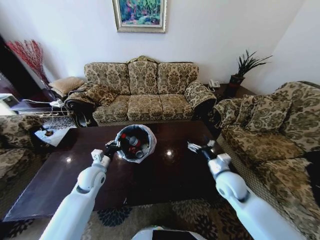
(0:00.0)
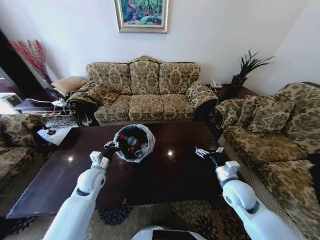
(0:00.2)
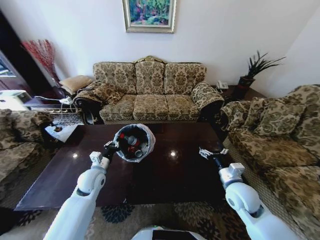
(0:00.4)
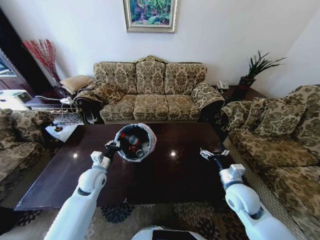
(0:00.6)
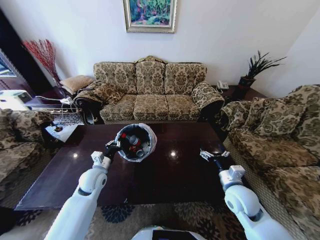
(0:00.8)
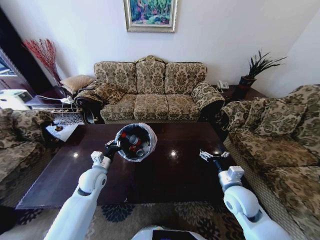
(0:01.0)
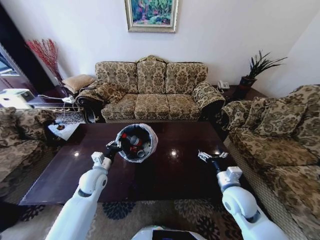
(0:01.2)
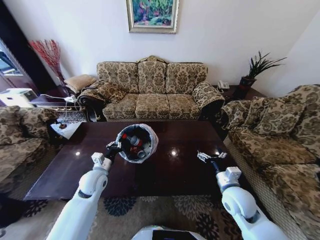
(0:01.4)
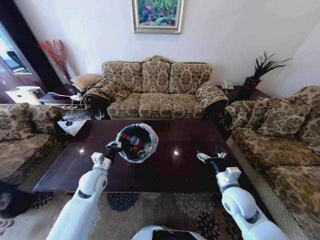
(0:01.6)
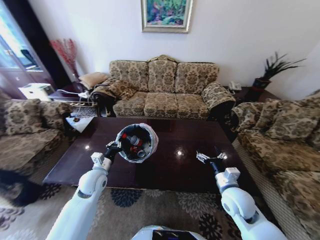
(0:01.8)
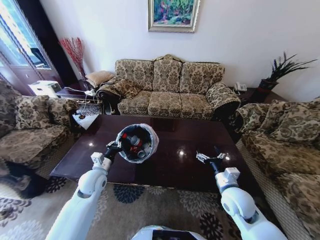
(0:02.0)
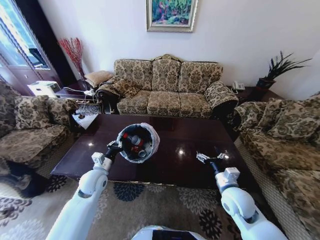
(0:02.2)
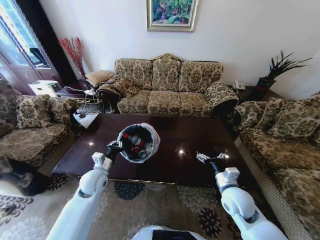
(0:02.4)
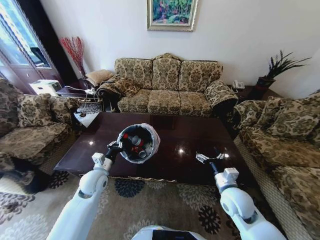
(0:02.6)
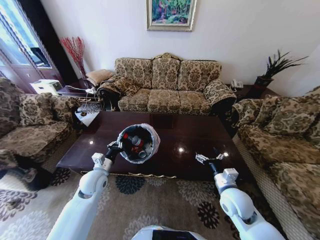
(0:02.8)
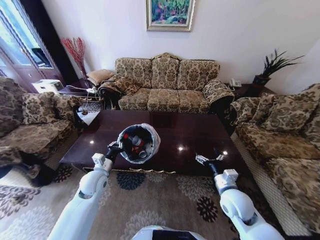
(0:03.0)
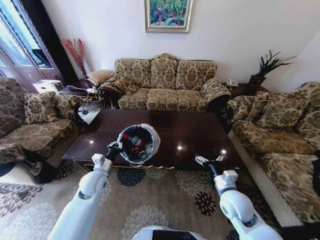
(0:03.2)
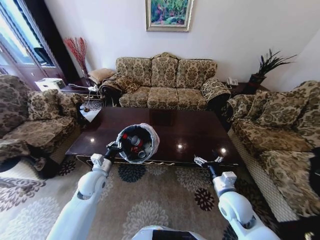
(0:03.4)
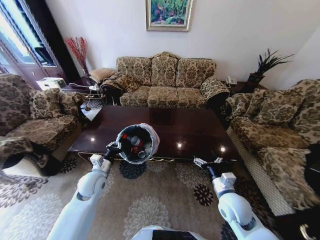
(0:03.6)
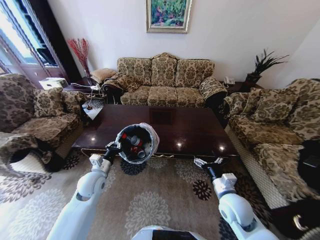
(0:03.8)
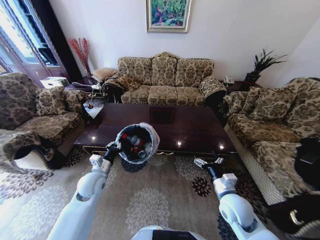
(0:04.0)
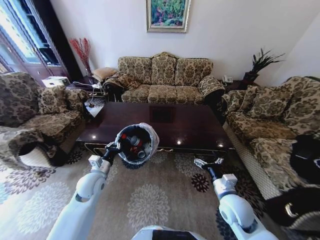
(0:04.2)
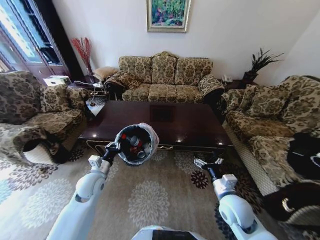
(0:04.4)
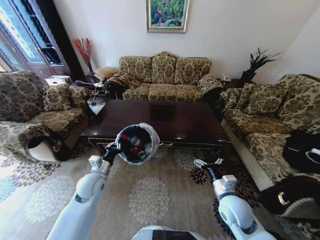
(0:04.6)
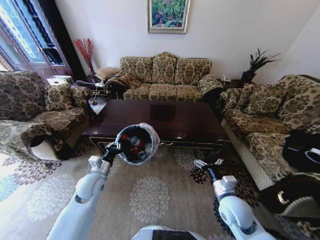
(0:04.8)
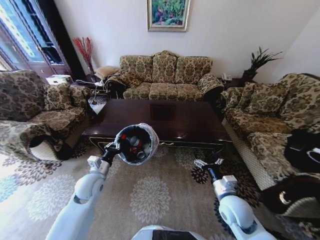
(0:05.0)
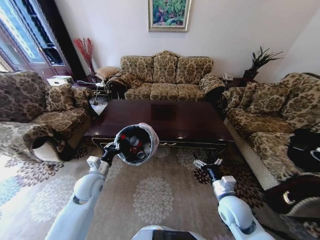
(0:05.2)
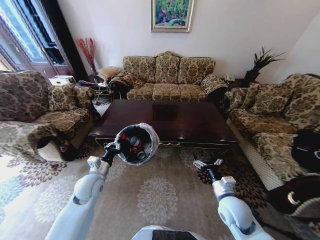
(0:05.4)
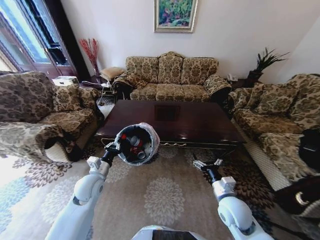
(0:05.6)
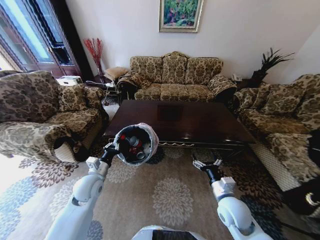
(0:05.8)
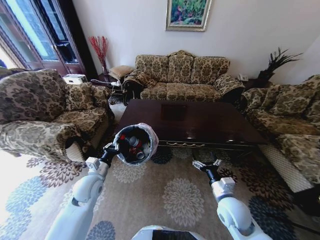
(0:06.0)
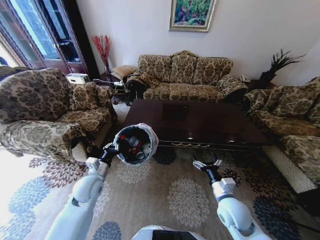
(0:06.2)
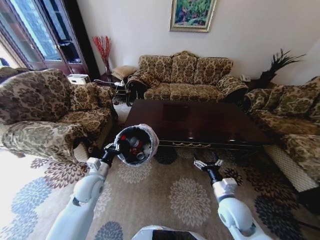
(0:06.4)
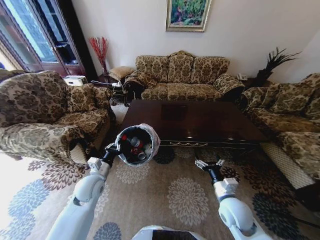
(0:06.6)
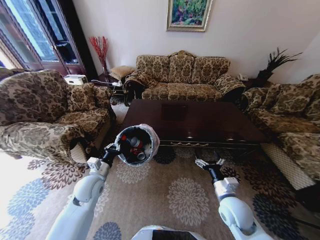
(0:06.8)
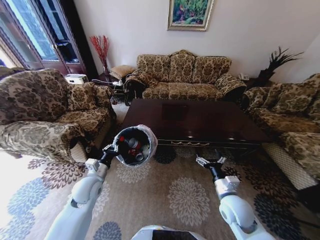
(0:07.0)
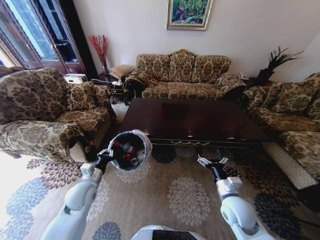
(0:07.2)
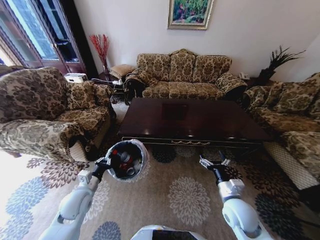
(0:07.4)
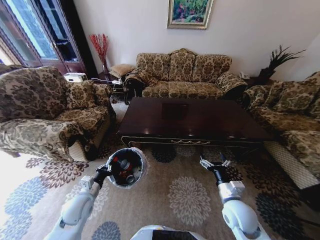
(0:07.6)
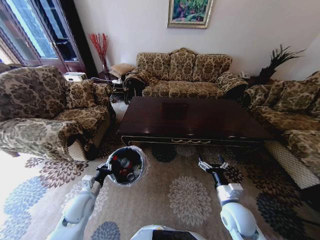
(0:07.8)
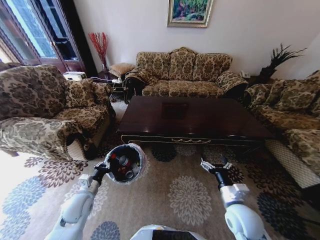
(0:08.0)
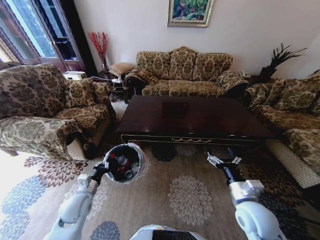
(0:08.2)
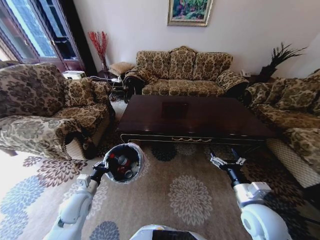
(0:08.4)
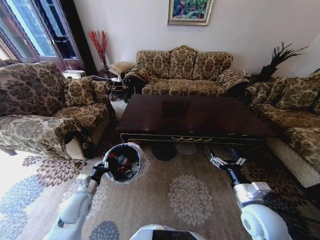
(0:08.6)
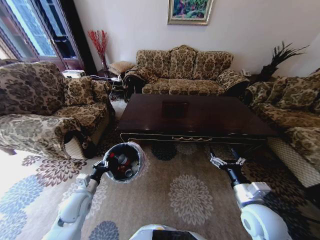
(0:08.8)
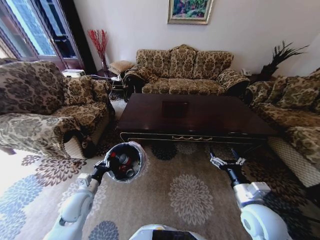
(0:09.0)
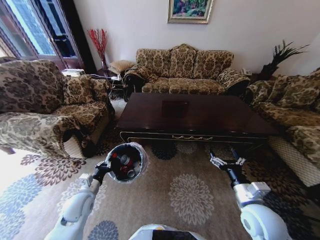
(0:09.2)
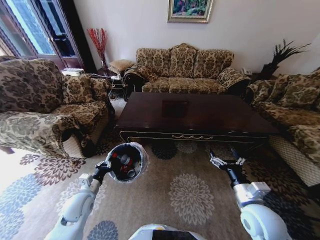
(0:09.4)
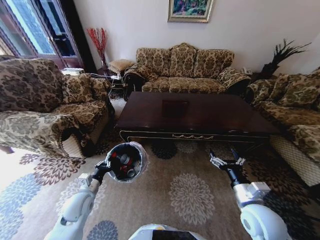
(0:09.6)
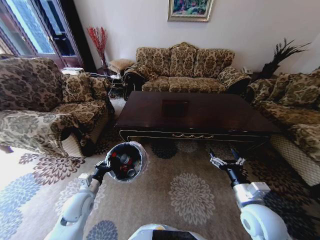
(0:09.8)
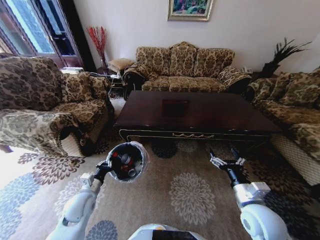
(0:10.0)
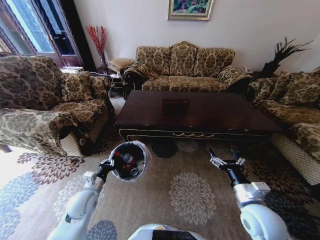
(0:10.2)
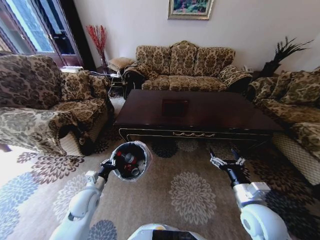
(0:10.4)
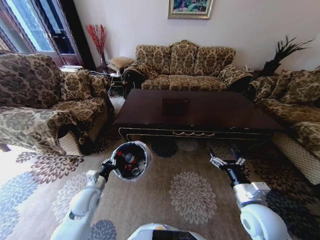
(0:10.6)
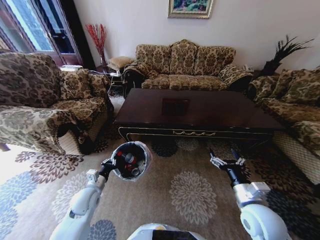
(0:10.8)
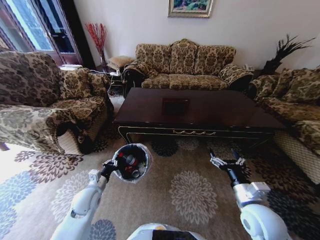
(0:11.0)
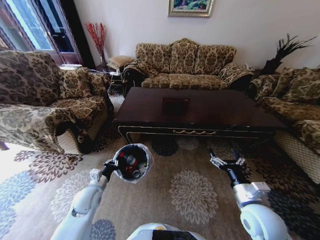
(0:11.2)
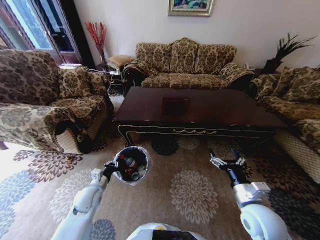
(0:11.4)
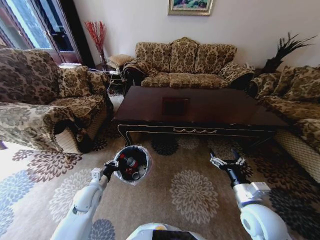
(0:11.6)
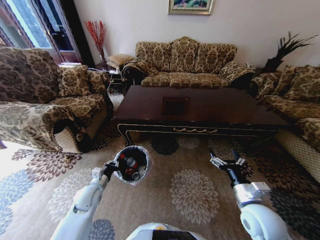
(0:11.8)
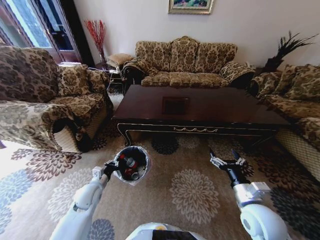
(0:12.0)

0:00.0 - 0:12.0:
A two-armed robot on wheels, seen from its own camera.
Task of the whole recording: Move to the front of the table and place the trash on the table into the trash bin.
0:00.0 - 0:01.6: The right gripper moves some 5 cm.
0:06.0 - 0:07.6: The left gripper shifts roughly 10 cm backward and downward.
0:07.6 - 0:09.0: The right gripper moves upward, roughly 5 cm.

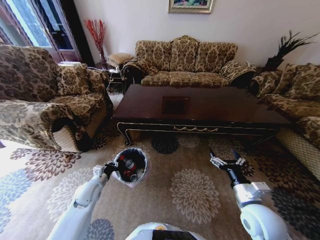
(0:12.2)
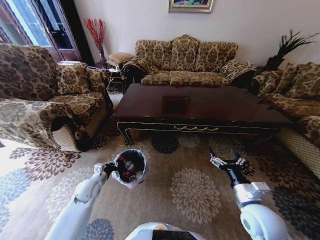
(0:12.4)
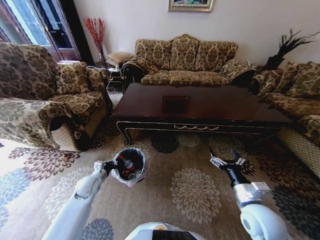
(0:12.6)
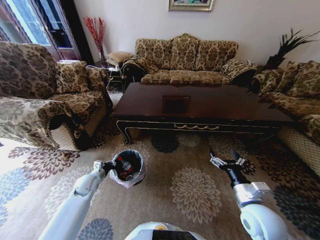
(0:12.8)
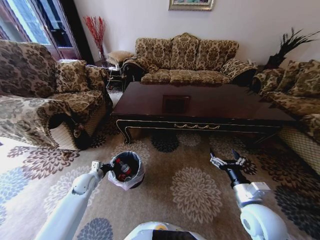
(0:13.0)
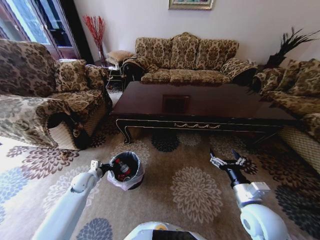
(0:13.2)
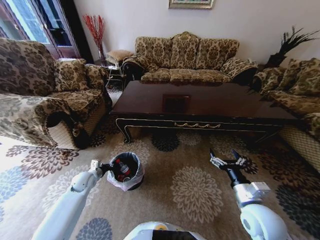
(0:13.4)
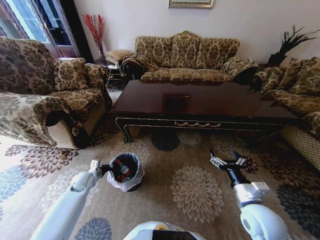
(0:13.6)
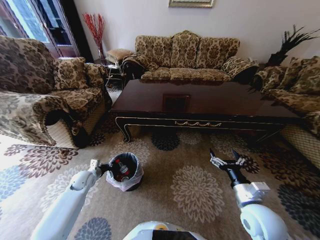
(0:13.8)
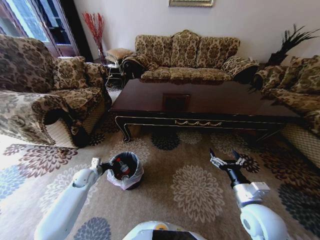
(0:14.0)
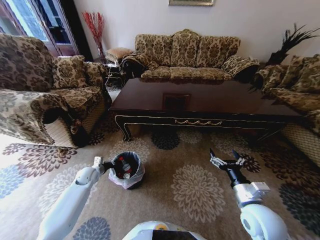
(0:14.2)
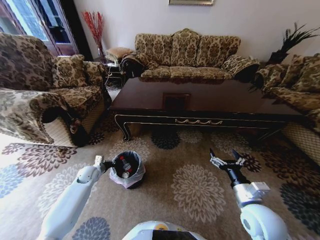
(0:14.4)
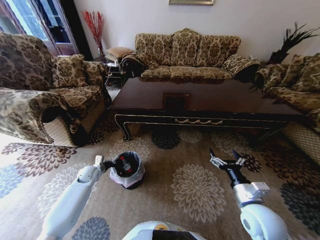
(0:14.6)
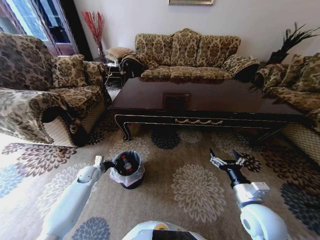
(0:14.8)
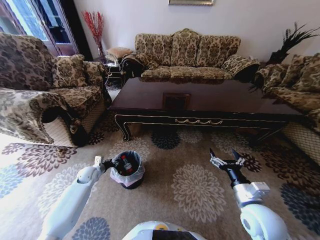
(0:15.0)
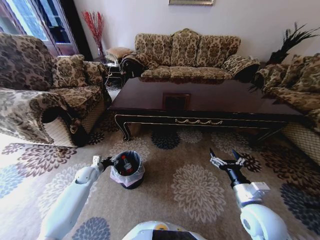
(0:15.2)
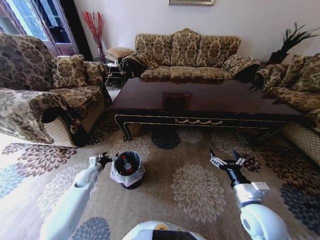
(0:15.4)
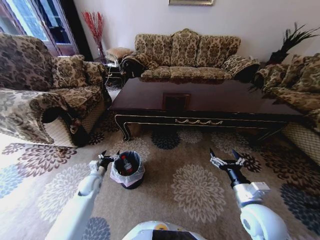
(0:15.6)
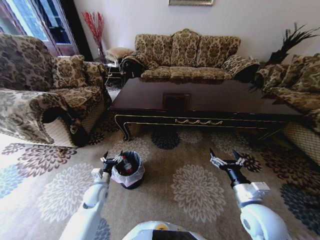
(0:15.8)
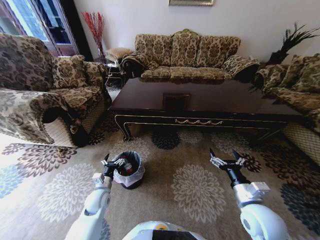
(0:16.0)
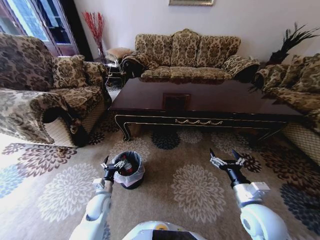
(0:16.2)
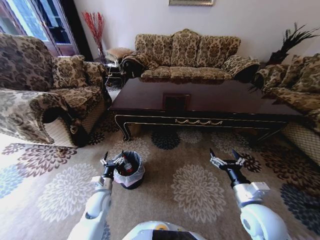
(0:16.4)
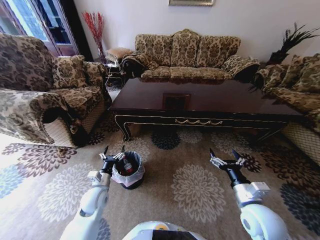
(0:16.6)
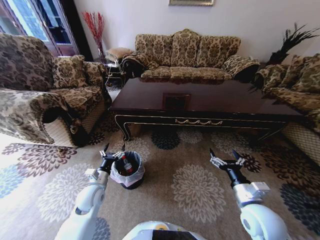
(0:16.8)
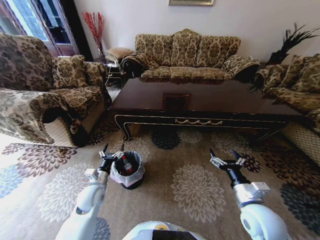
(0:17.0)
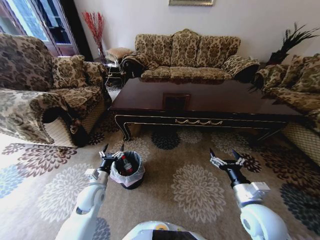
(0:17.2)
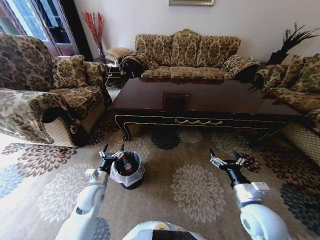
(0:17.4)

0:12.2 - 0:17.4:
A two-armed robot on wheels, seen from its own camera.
Task of the whole recording: Move to the front of the table and place the trash on the table into the trash bin.
0:12.2 - 0:14.0: The left gripper goes approximately 10 cm forward and to the left.
0:14.0 - 0:15.6: The left gripper shifts by some 5 cm, and opens its fingers.
0:15.6 - 0:17.4: The left gripper shifts about 10 cm backward, to the right and upward.
